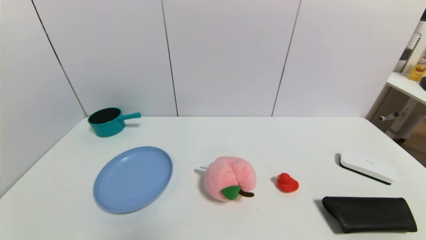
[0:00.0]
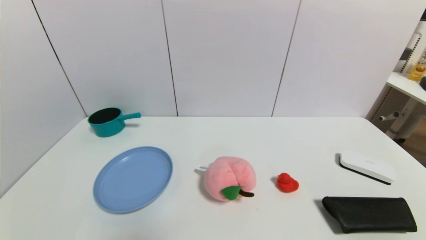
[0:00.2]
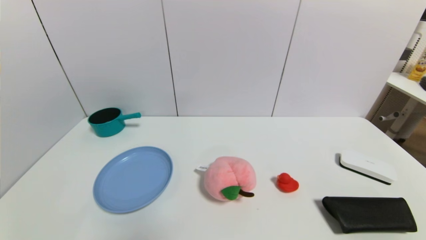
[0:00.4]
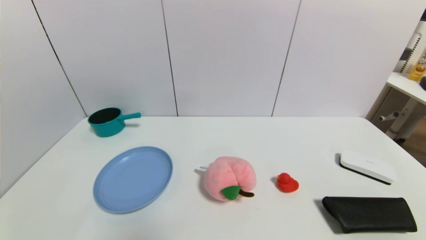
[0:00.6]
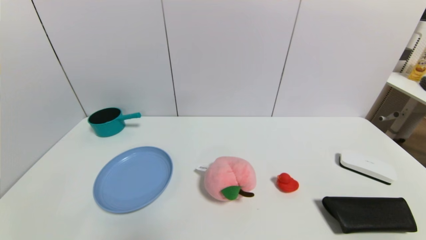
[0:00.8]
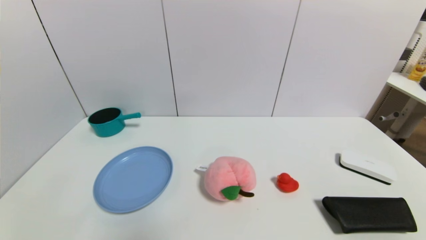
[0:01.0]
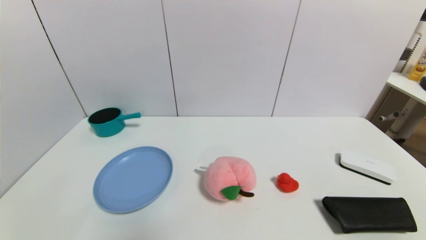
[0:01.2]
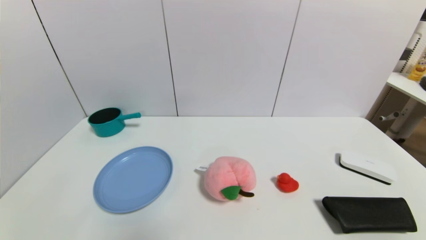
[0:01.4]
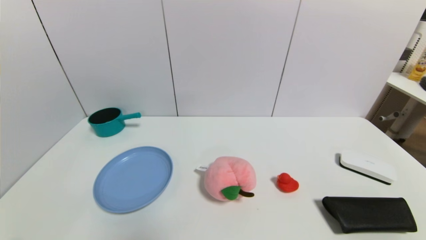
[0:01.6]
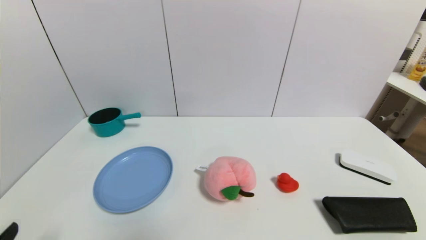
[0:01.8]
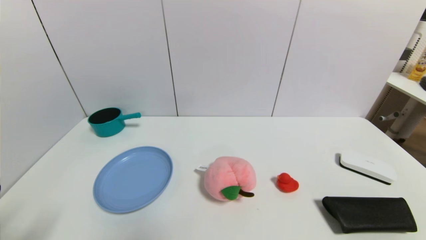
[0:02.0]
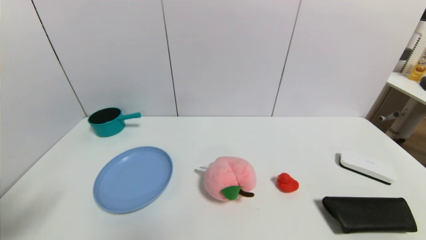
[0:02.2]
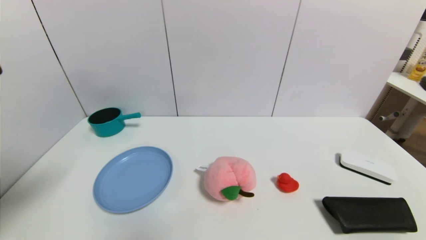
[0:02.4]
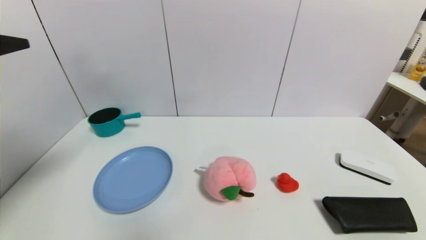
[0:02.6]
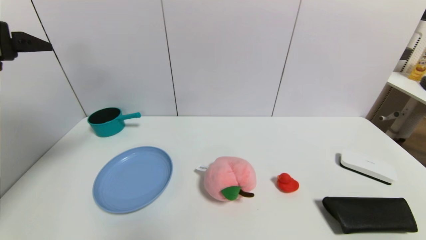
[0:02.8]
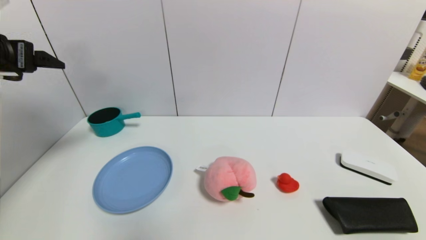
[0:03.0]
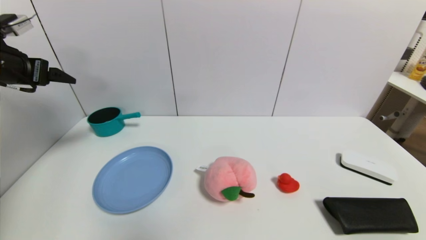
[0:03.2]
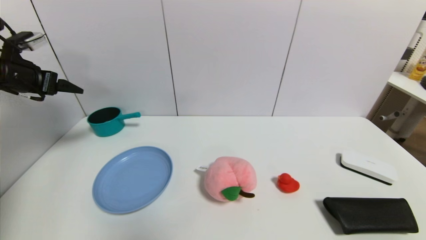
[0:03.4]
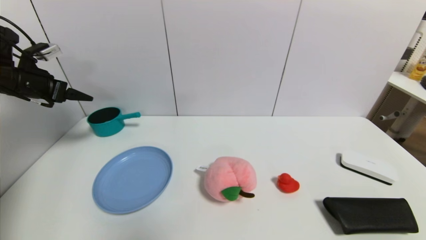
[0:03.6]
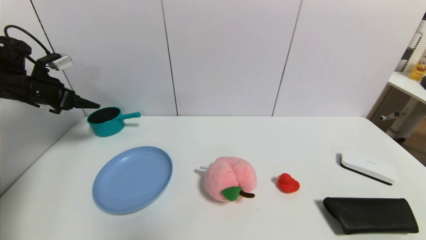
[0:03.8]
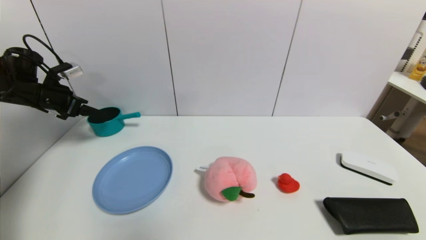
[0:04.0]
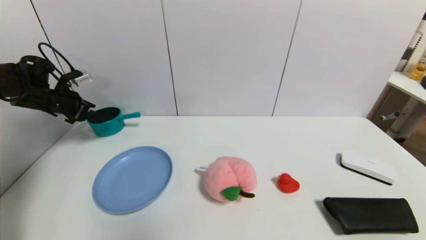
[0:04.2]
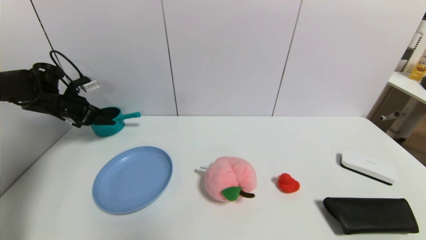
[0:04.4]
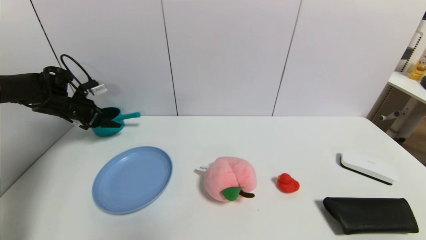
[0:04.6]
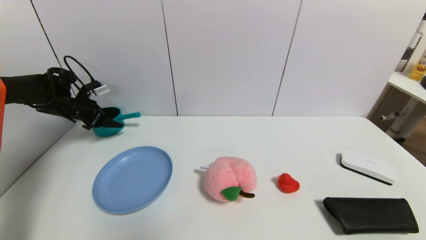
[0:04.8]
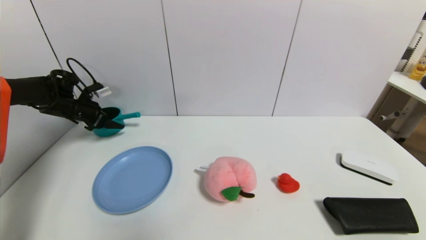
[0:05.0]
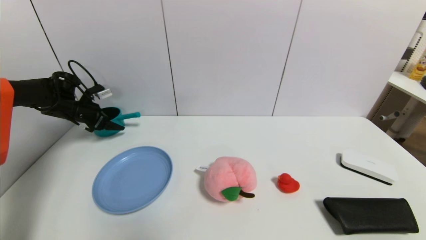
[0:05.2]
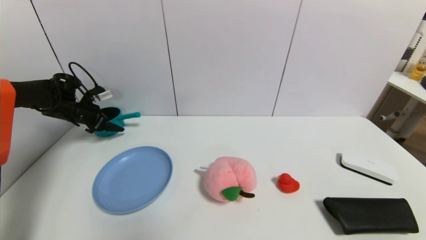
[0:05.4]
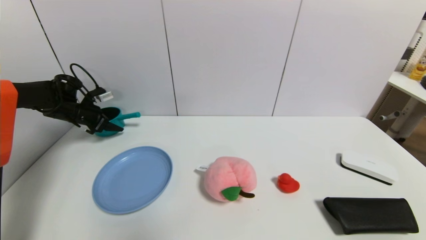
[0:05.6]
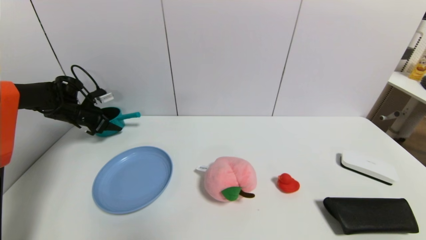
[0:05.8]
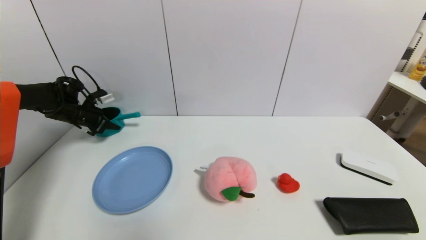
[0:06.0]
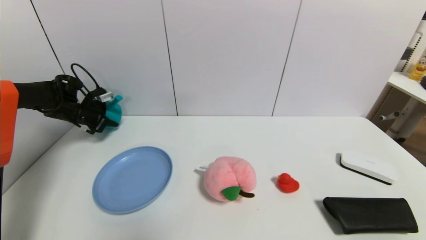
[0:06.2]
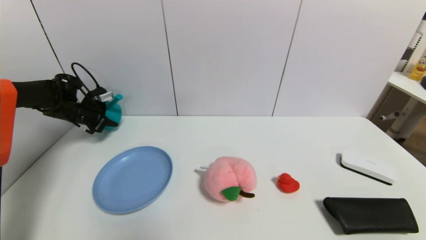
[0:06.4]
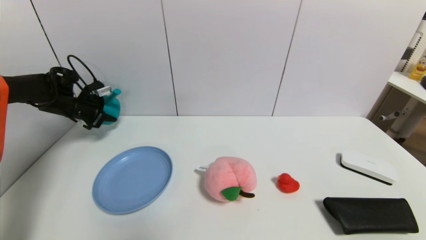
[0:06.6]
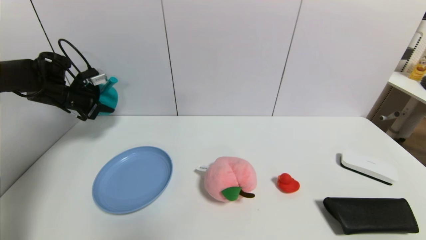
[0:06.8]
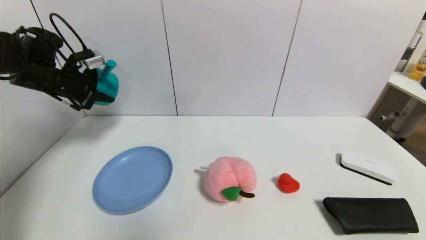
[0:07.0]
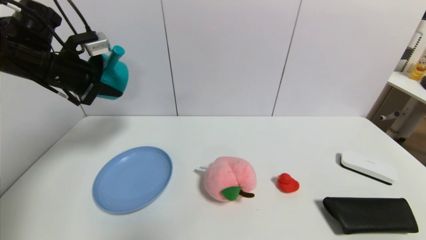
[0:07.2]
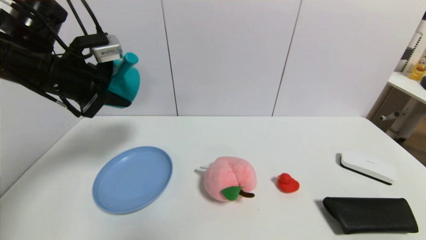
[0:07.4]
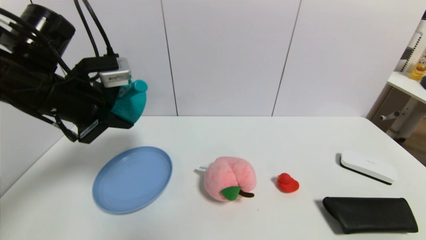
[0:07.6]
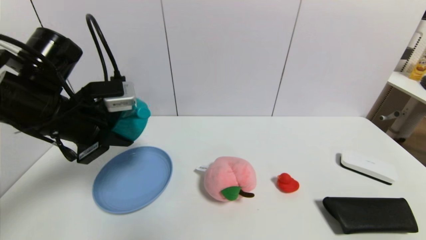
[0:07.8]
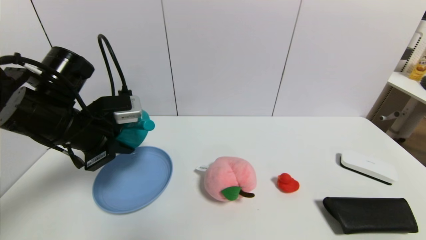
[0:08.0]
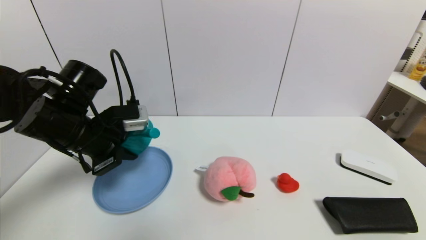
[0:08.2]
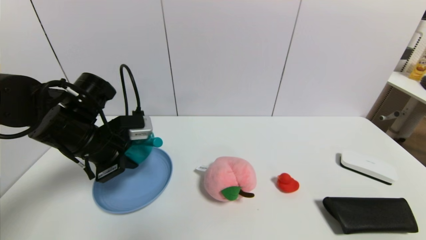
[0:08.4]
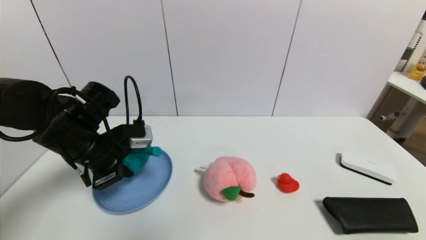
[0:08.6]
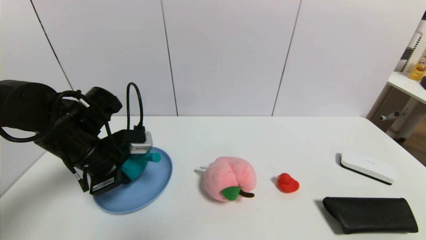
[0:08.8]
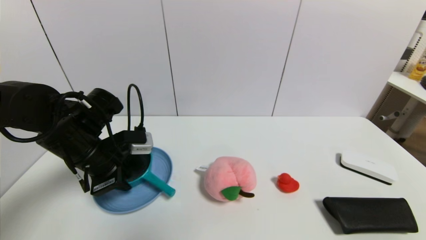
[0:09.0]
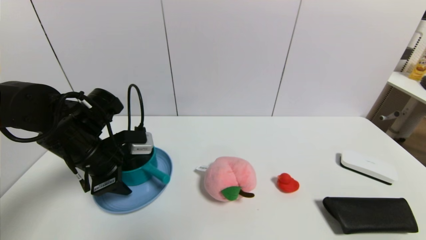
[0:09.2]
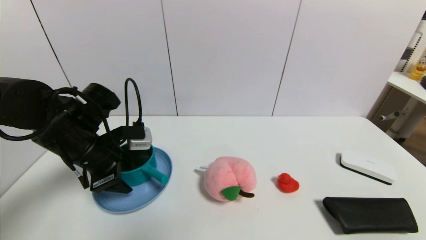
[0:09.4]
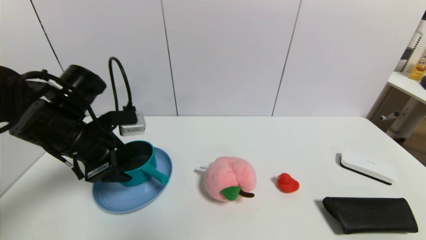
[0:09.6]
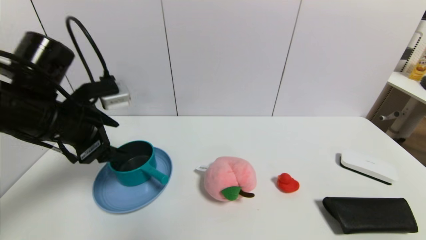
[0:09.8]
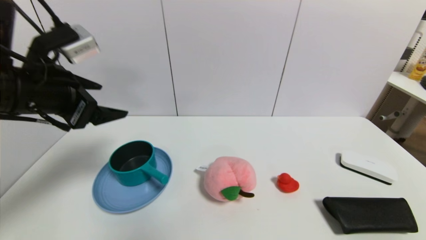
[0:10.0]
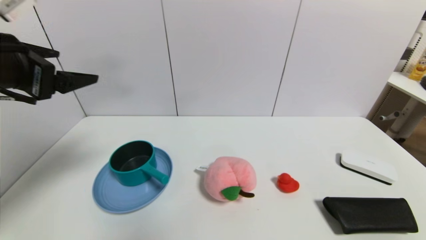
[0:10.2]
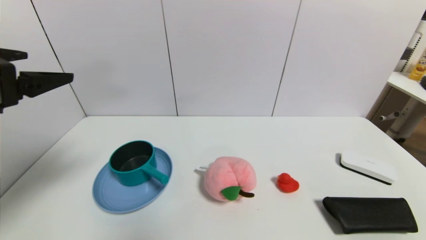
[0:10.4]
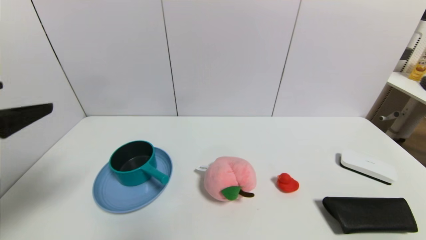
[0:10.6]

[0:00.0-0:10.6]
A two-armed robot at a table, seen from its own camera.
Task of the whole recording: use a gripper to pick the target object and place on the blue plate.
Step, 0:00.0 to 0:06.0: Grasp the blue pot with the left gripper.
Step, 0:06.2 to 0:10.0: Place the blue pot on the blue plate with the left gripper.
0:01.6 to 0:03.0: The left gripper is displaced forward and upward by roughly 35 cm.
0:03.0 to 0:04.6: The left gripper shifts about 25 cm forward and downward.
0:04.6 to 0:06.0: The left gripper closes its fingers.
0:06.0 to 0:07.6: The left gripper shifts approximately 30 cm backward, to the right and upward.
0:07.6 to 0:09.0: The left gripper moves downward, about 10 cm, and opens.
0:09.0 to 0:10.6: The left gripper heads backward and upward, covering roughly 20 cm, and opens.

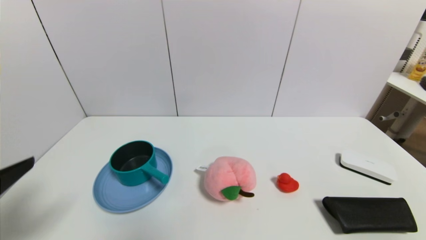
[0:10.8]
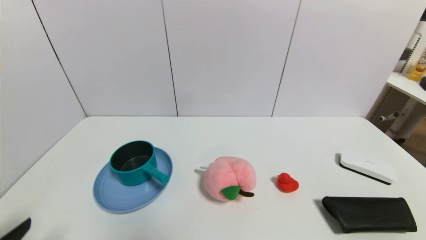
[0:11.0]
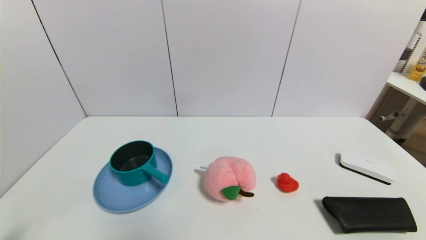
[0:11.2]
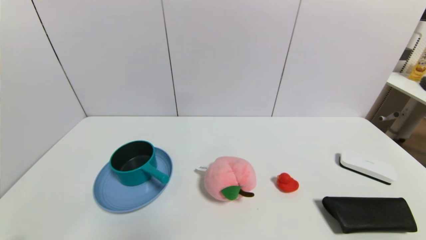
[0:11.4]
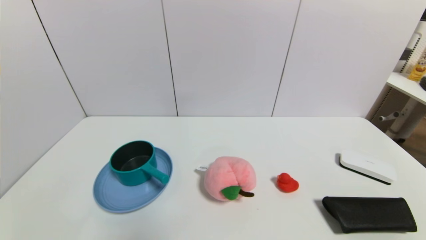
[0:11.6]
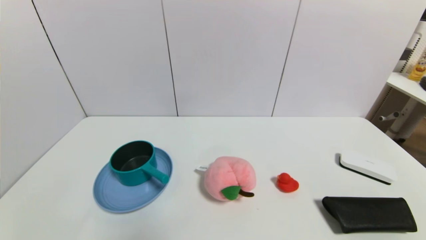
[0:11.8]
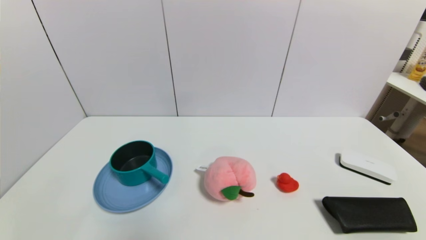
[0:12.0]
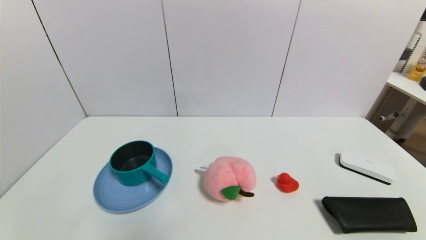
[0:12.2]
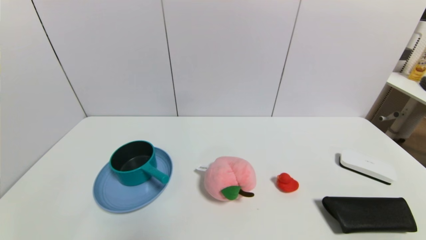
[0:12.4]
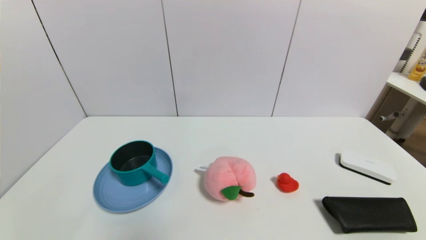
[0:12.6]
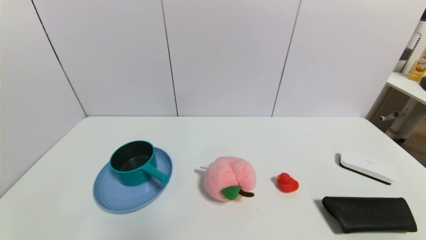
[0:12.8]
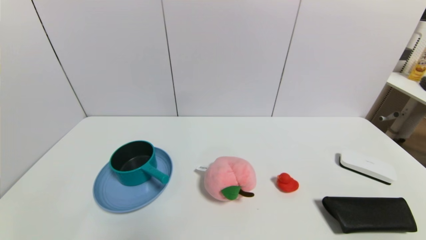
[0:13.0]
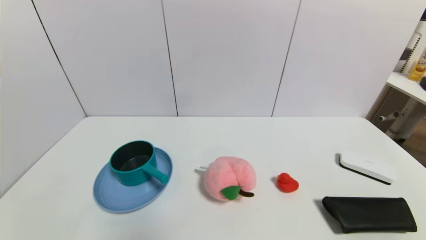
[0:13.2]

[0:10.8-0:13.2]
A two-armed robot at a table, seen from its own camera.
Task of the whole recording: use a gripper to pick the target object and place on the blue plate.
0:10.8 to 0:12.0: The left gripper travels downward by about 20 cm.
0:12.0 to 0:13.2: Both grippers stay about where they are.
